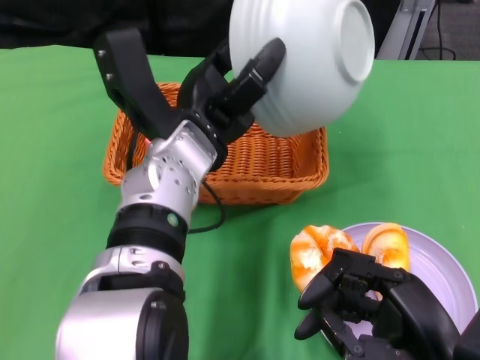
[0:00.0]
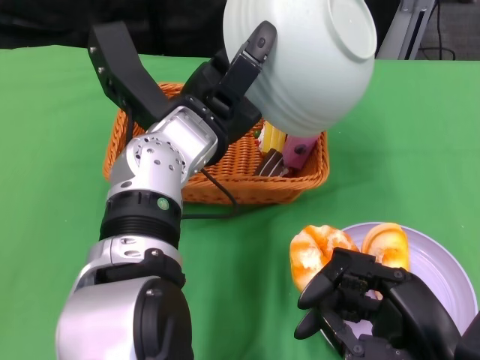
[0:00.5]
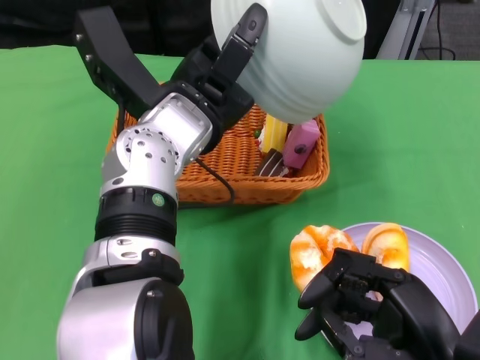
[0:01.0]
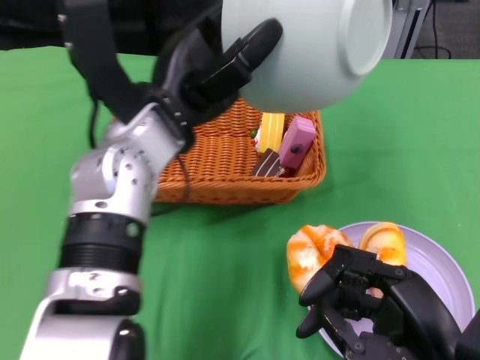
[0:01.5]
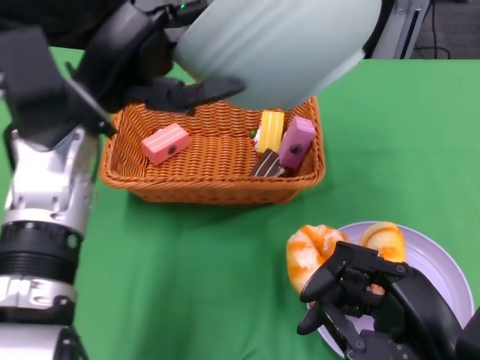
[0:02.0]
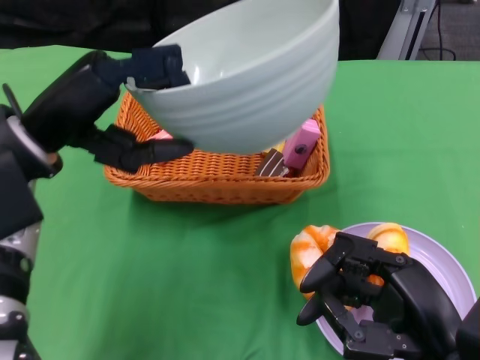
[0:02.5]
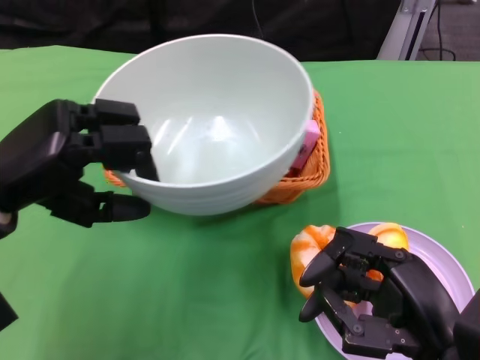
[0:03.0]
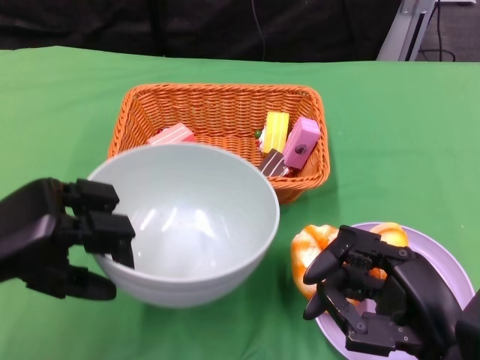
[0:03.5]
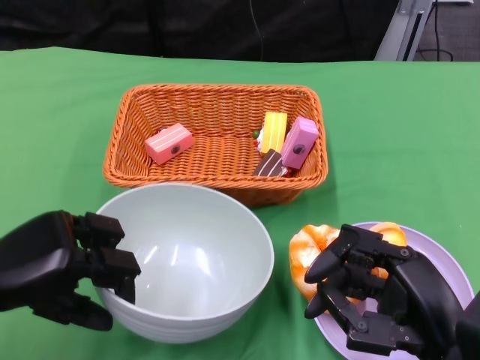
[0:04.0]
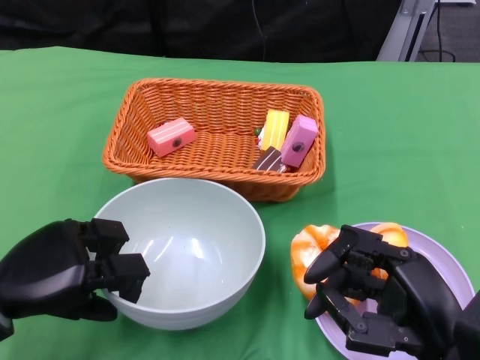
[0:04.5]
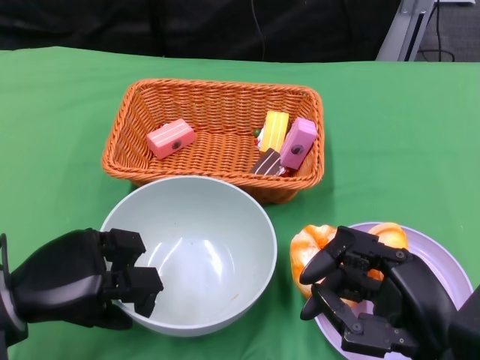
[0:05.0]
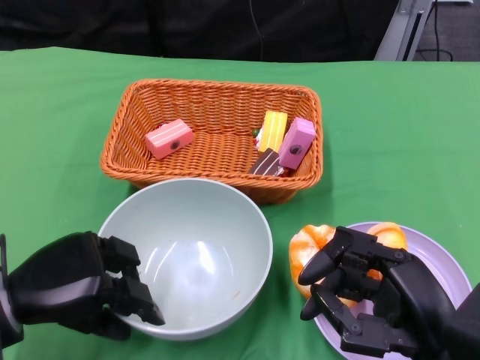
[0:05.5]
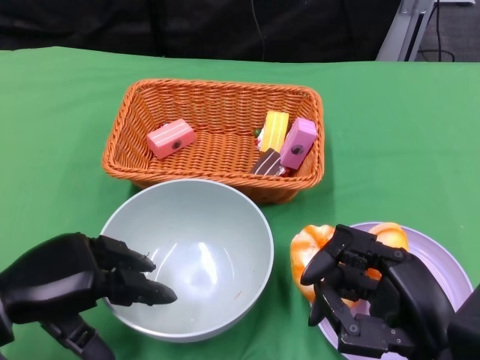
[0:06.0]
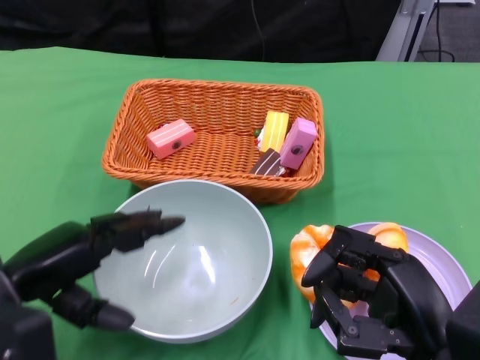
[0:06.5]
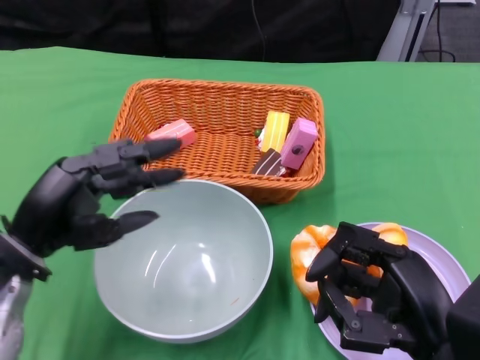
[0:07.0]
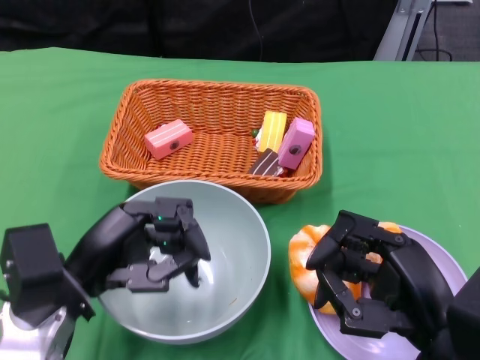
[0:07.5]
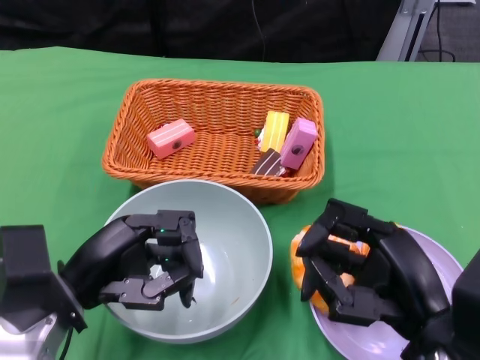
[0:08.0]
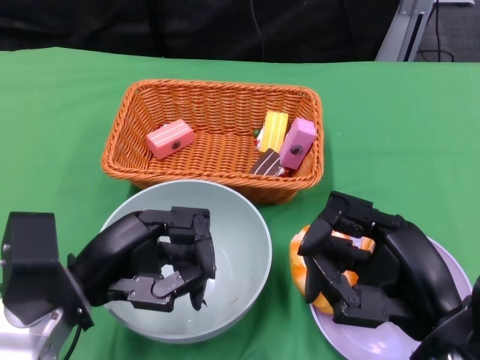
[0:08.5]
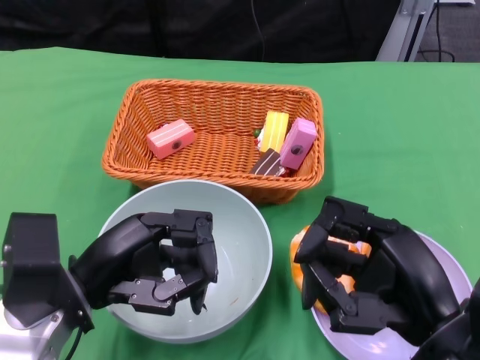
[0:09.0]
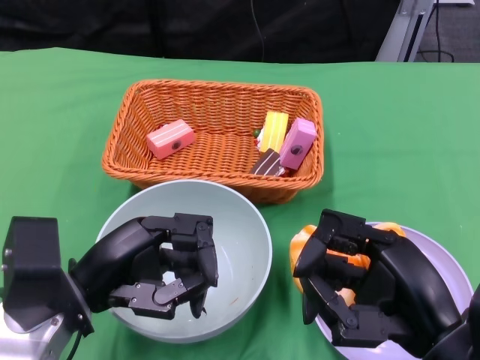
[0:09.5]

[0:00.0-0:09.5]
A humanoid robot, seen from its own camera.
Step, 0:01.5 to 0:05.5: Place the bowl on the table with the left gripper.
0:00.0 to 0:02.0: The left hand heads to the left and upward, covering approximately 10 cm.
0:02.0 to 0:04.0: The left hand moves downward, to the left and backward, about 20 cm.
0:04.0 to 0:05.5: The hands stay close to where they were, moving slightly.
0:05.5 to 0:07.5: The left hand travels to the right by some 5 cm.
0:07.5 to 0:09.5: The hands stay close to where they were, moving slightly.

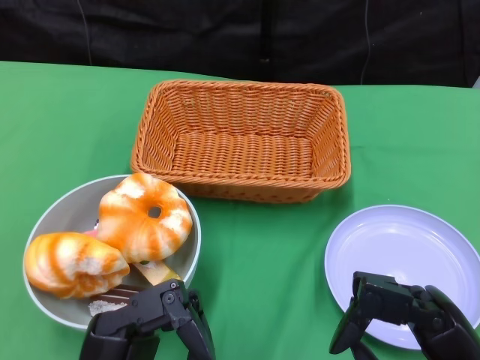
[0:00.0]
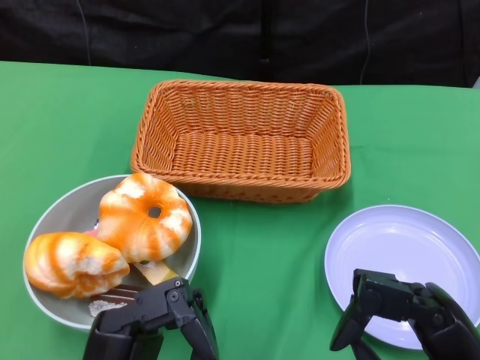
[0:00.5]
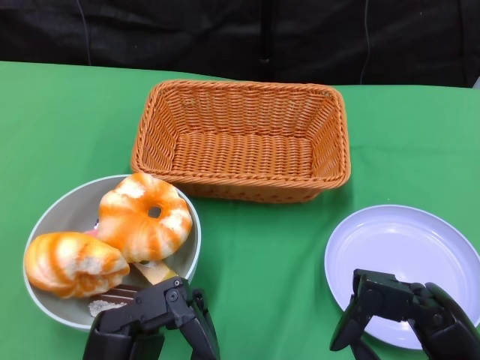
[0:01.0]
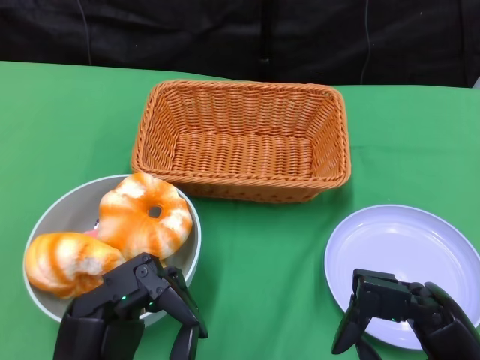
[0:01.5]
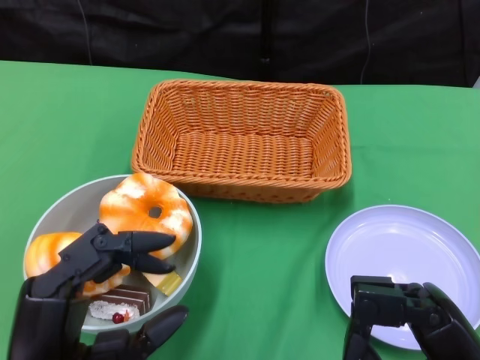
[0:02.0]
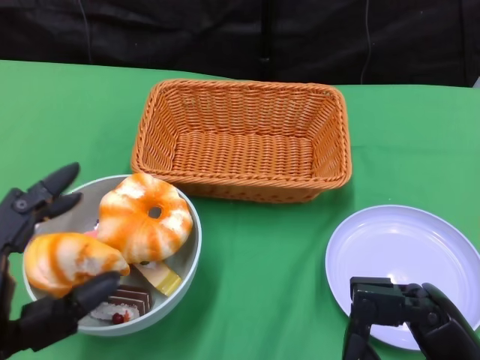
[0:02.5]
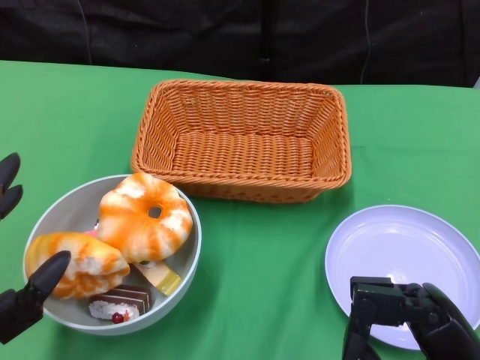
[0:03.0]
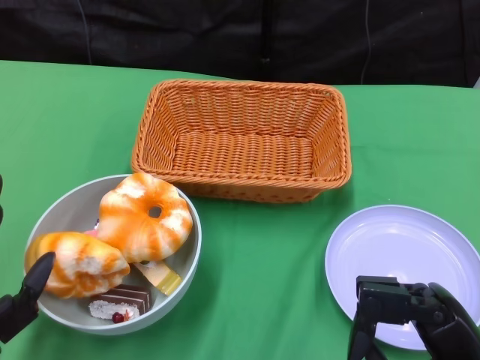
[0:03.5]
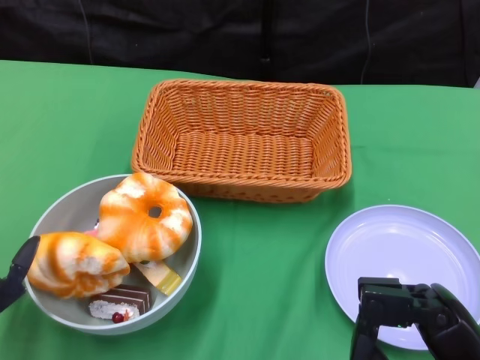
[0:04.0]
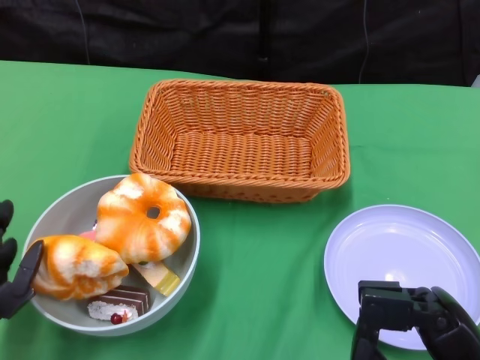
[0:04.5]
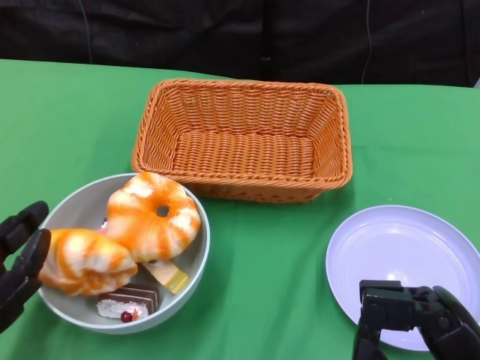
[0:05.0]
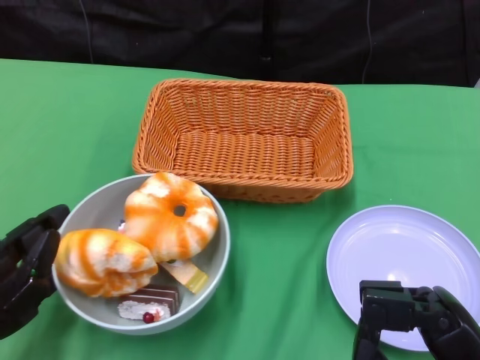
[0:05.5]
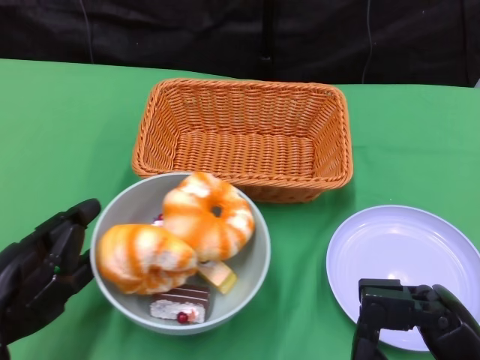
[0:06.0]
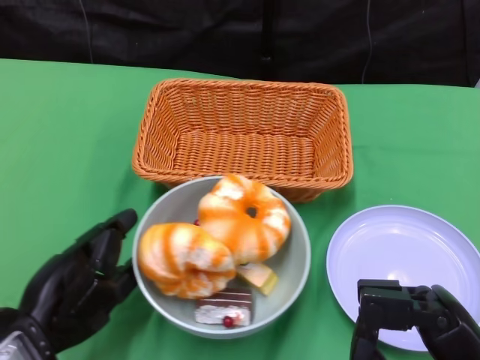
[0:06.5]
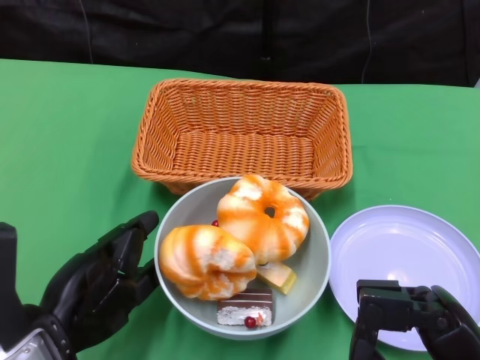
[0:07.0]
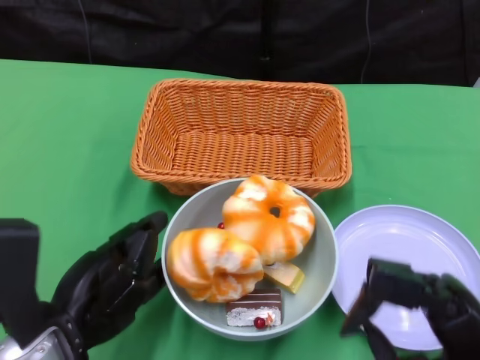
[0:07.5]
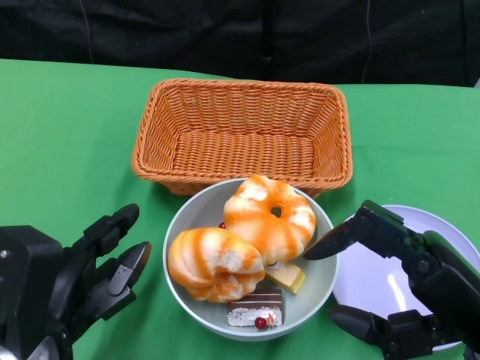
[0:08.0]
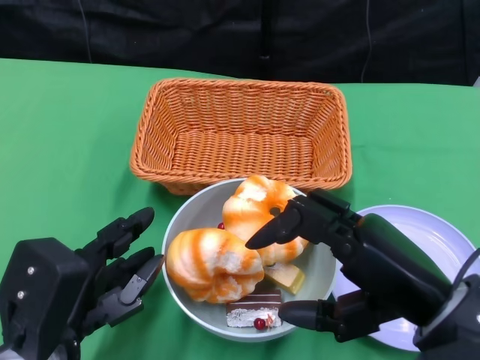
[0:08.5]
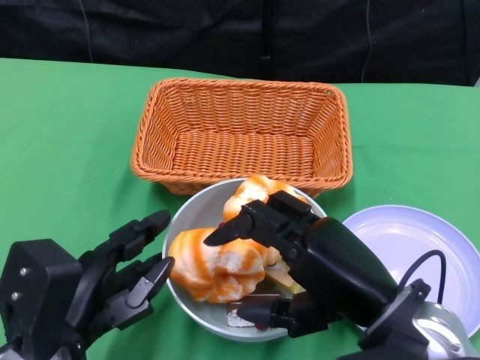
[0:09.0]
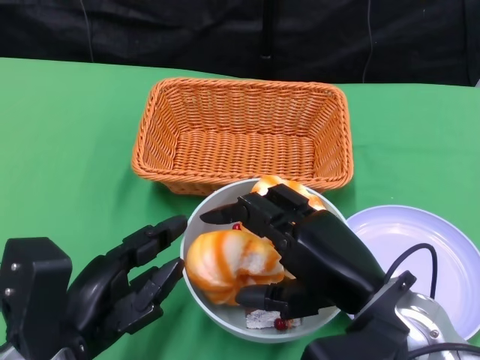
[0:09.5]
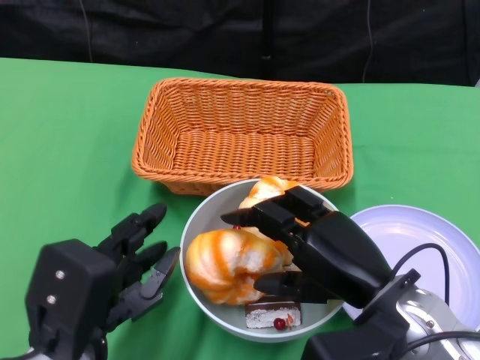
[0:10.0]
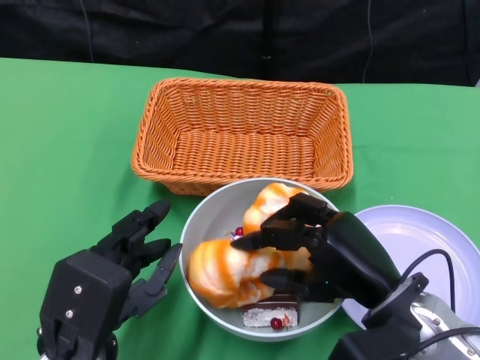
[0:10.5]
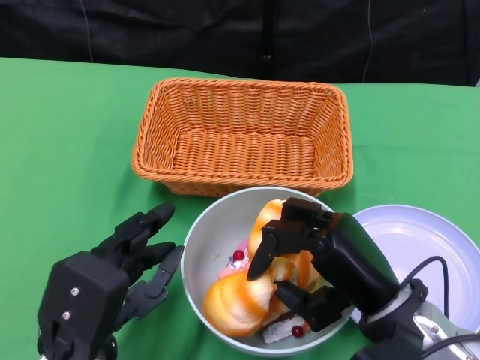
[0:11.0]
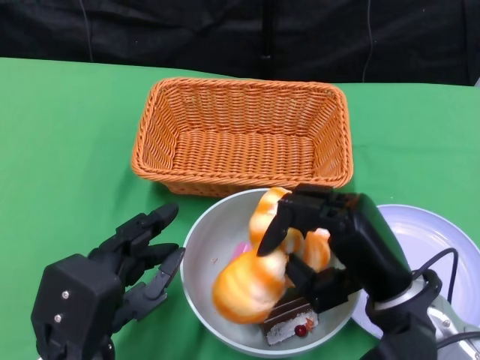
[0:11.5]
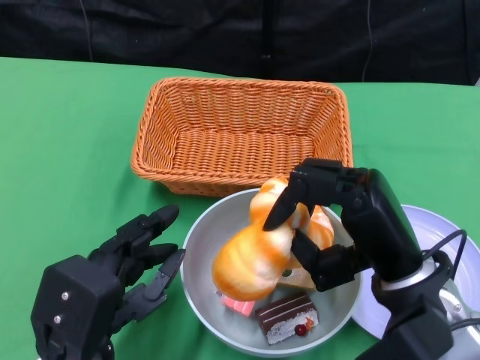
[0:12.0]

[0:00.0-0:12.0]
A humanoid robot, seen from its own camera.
Step, 0:00.0 to 0:07.5: Push the bowl to the center of the table using the left gripper.
0:02.0 to 0:04.0: The left hand is displaced to the left by approximately 10 cm.
0:06.0 to 0:08.0: The right hand is displaced upward by roughly 5 cm. The left hand moves to the right, about 5 cm.
0:08.0 to 0:10.0: The right hand shifts about 10 cm to the left and forward.

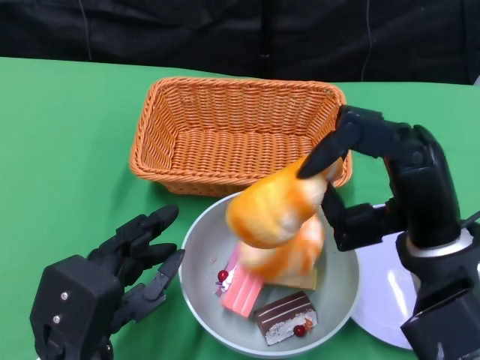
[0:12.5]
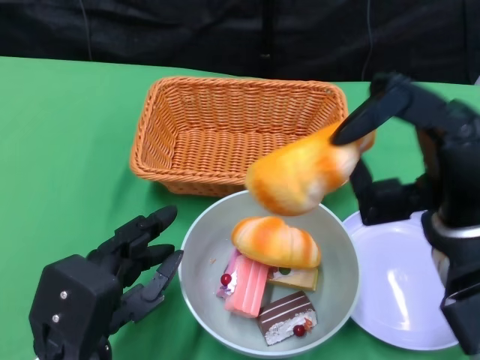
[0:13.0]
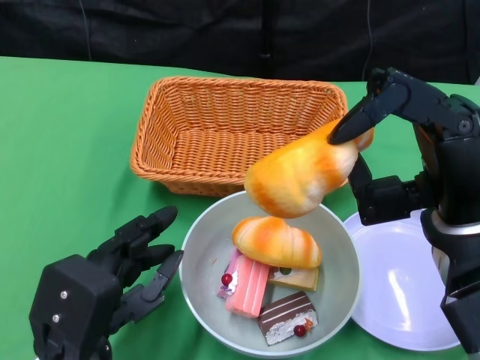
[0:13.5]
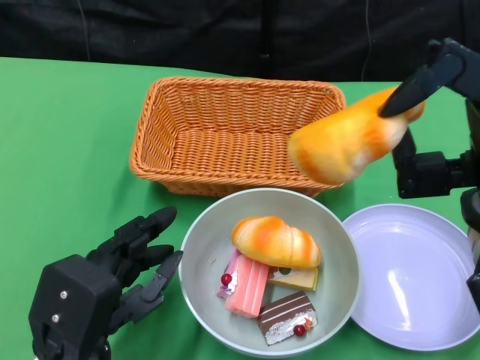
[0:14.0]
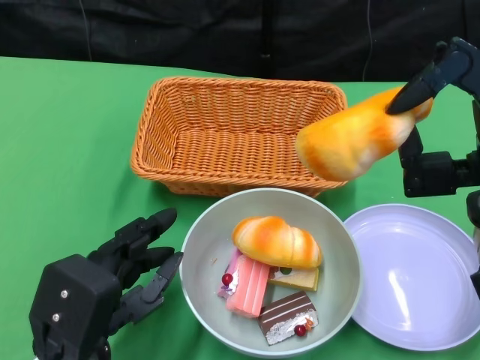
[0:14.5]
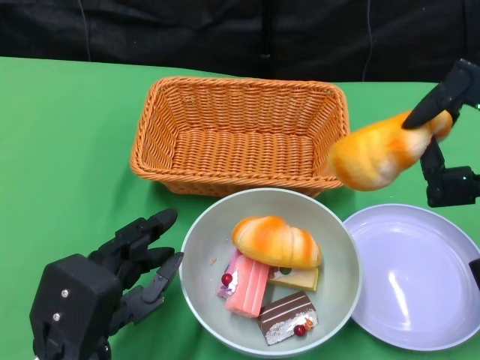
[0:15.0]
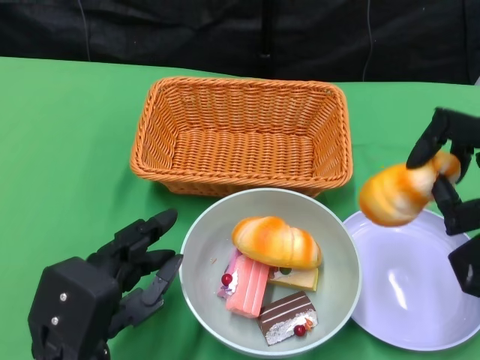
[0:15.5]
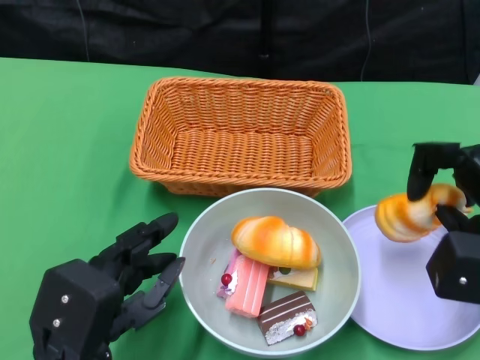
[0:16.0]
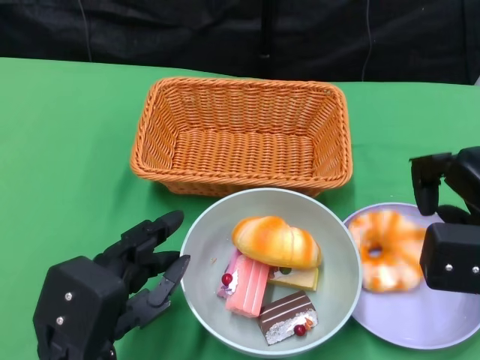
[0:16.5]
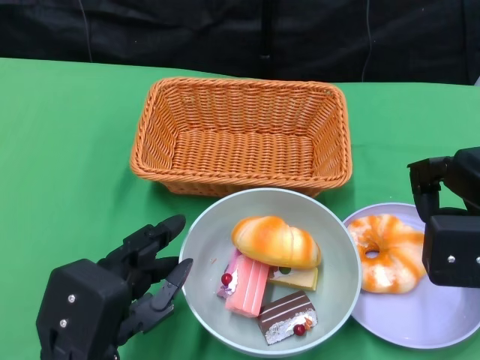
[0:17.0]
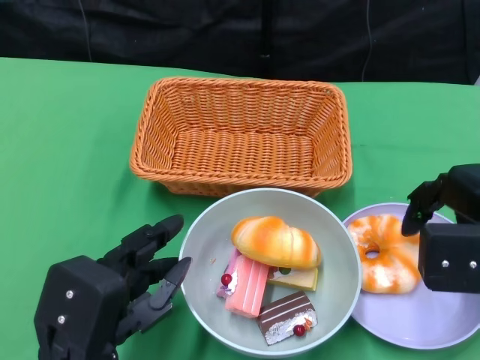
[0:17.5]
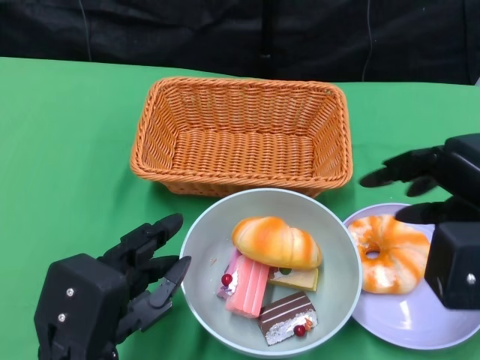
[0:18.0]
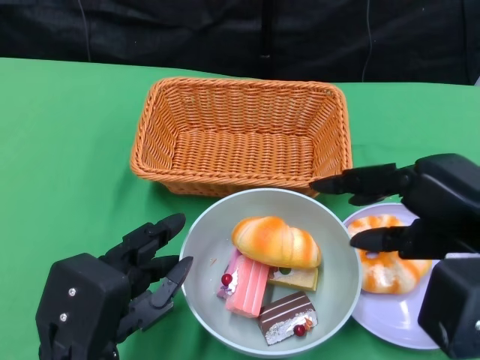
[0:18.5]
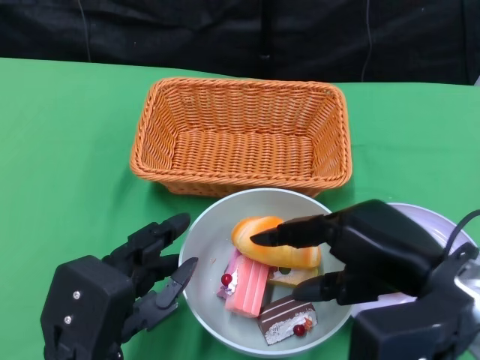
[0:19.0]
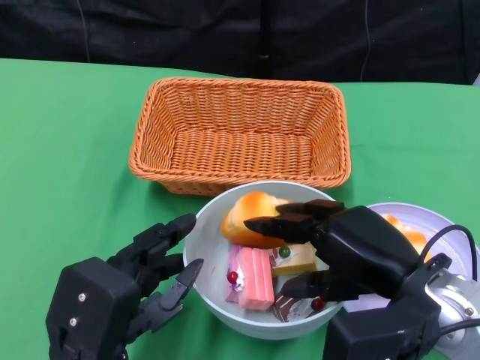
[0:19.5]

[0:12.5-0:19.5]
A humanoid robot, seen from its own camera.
0:12.5 to 0:14.5: The right hand changes place by approximately 5 cm.
0:14.5 to 0:16.0: The right hand travels to the right by about 5 cm.
0:17.5 to 0:19.5: The right hand moves to the left, about 10 cm.
